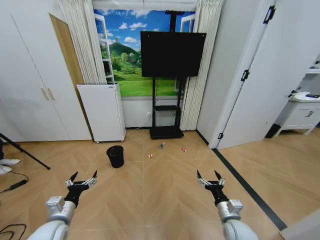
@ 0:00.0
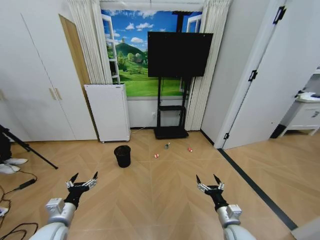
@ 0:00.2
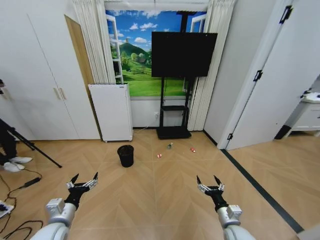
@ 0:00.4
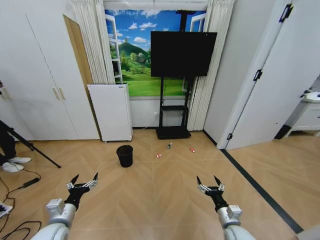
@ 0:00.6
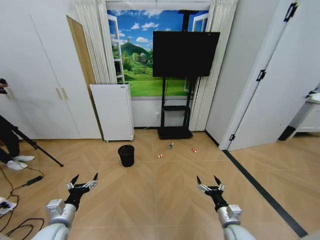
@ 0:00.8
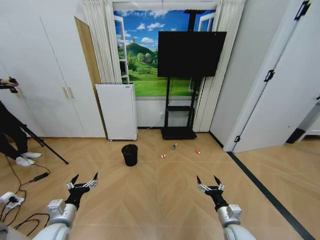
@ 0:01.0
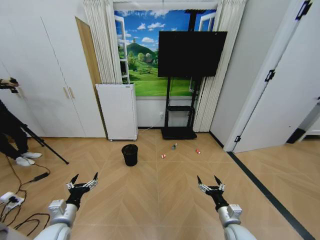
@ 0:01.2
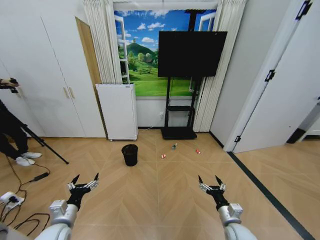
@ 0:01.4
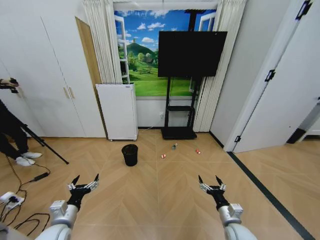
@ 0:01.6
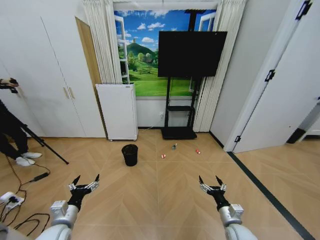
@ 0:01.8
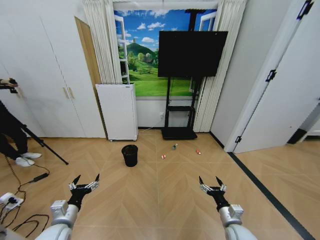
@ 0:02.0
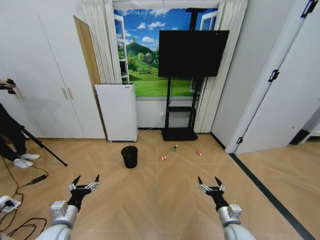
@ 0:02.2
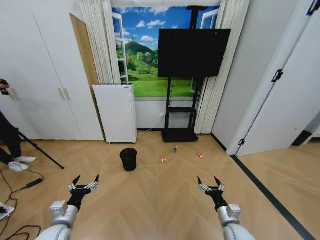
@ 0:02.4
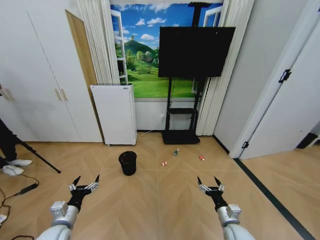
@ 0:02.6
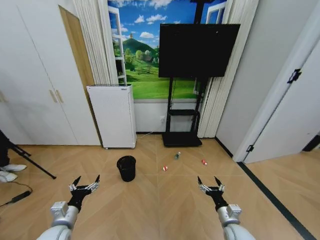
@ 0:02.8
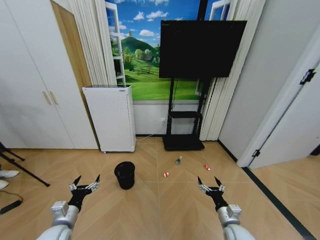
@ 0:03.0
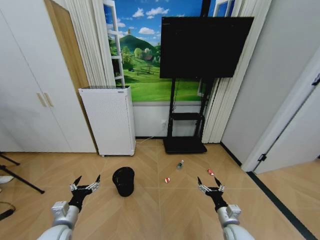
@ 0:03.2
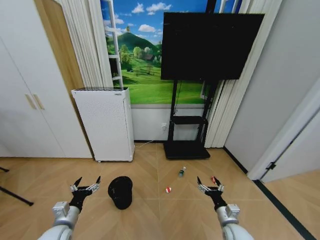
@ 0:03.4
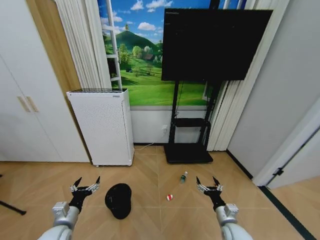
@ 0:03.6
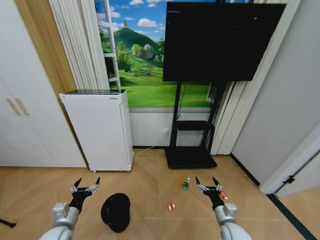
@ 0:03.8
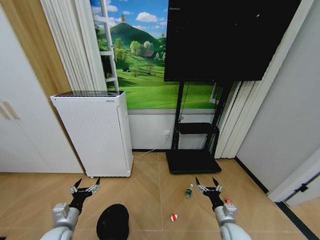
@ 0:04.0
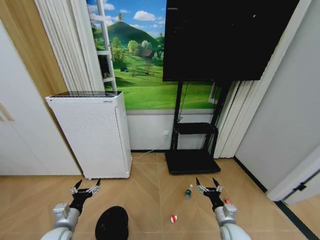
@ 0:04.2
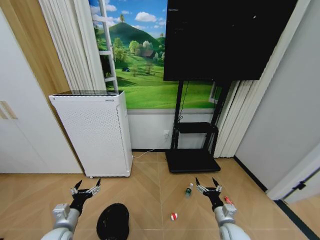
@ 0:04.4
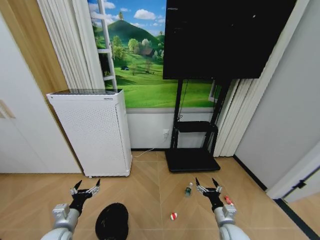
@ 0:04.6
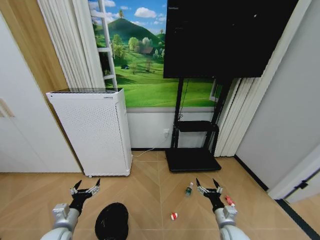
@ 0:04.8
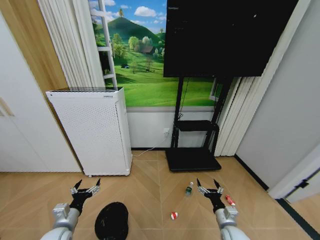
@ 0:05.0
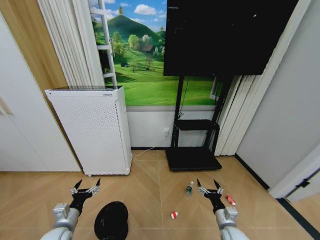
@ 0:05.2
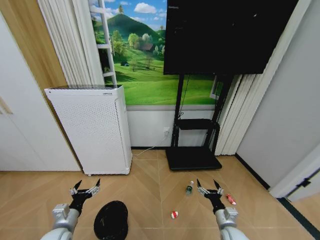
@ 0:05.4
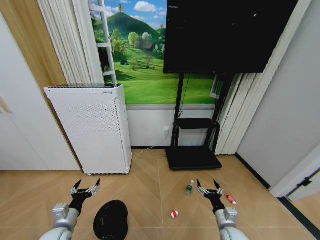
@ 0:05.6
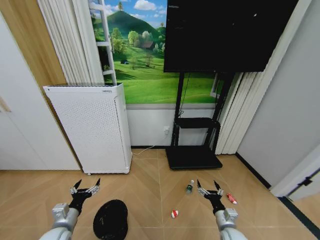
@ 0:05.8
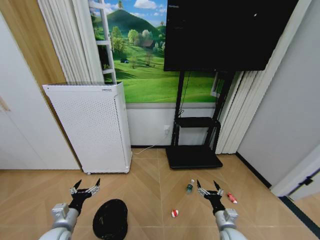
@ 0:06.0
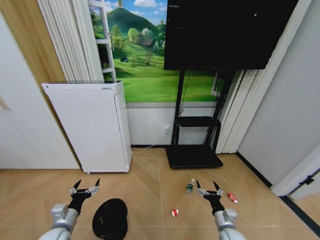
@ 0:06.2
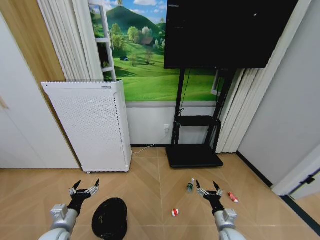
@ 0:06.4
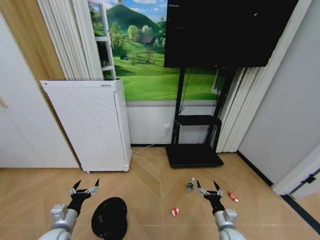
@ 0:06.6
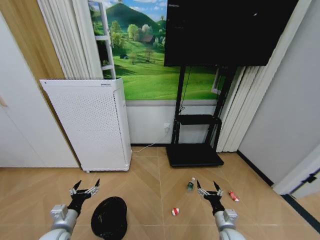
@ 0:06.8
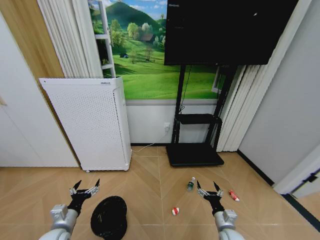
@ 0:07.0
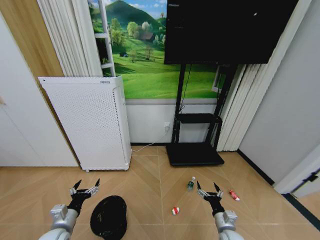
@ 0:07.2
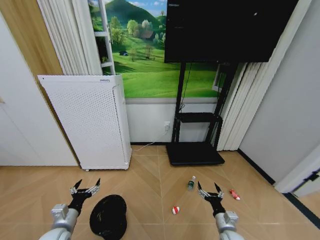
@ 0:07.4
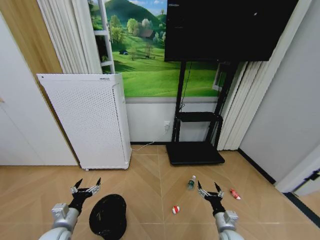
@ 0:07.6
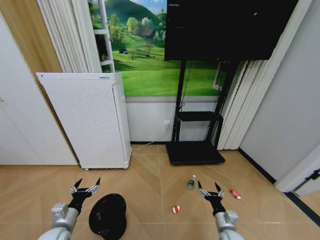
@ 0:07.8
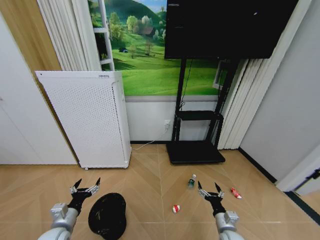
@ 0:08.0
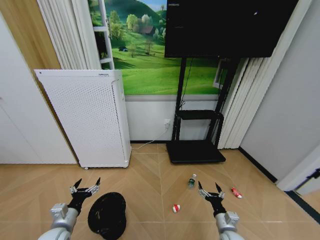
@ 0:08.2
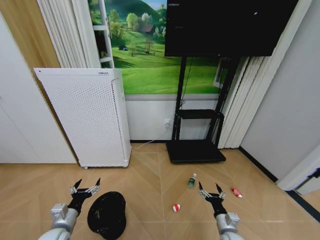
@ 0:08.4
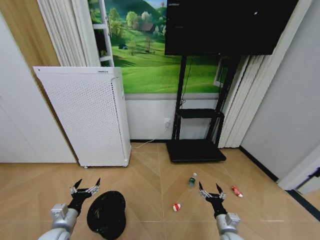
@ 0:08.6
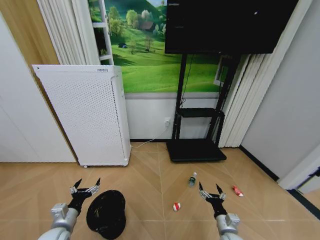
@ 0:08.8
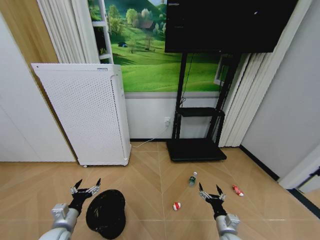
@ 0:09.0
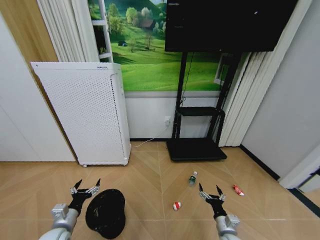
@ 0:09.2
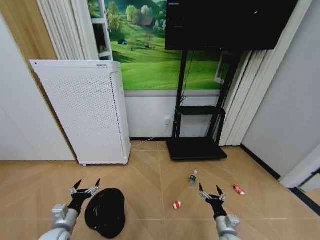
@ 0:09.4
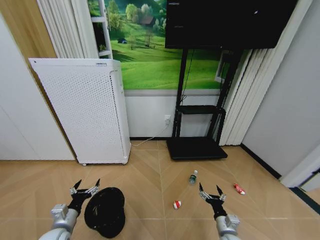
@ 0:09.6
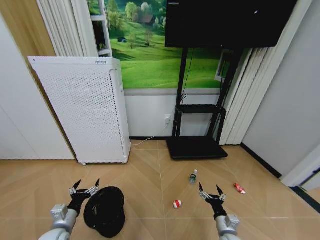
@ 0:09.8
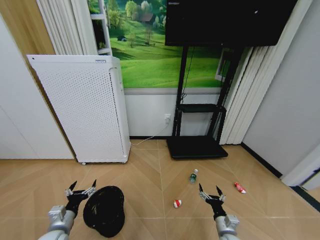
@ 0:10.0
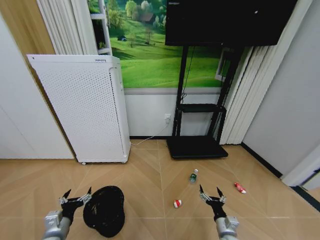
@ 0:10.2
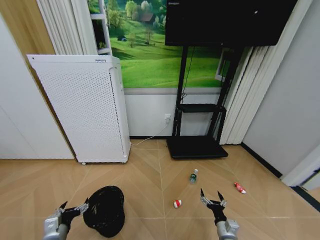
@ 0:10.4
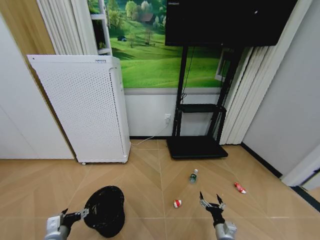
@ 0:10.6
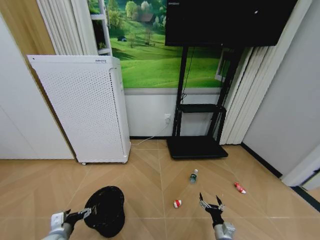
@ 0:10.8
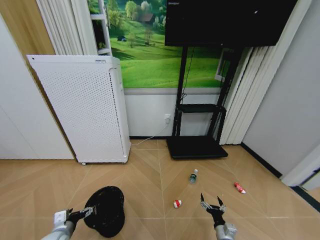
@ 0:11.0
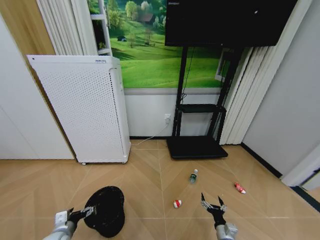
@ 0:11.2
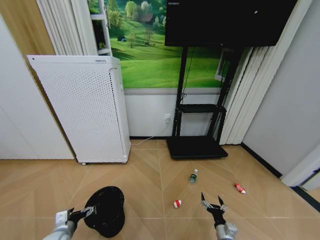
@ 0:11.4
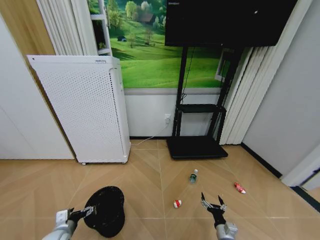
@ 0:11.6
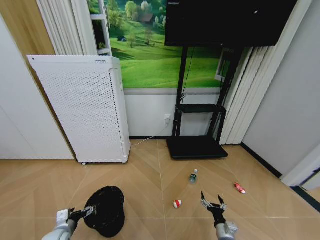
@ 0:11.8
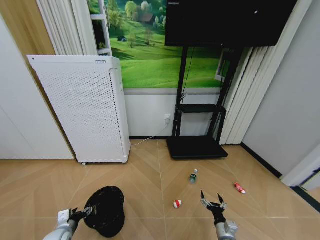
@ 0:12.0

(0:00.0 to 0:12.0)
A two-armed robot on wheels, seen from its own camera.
Task of the whole recording: Pick up the trash bin and place the garbage on the floor into it.
0:04.4 - 0:06.0: The grippers make only small movements.
0:06.0 - 0:07.6: The two grippers keep their place.
0:07.6 - 0:09.0: Both grippers stay put.
0:10.4 - 0:12.0: The left gripper moves some 5 cm.

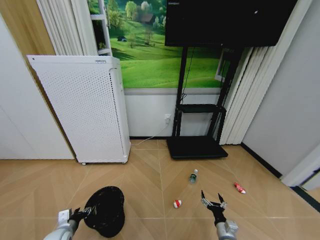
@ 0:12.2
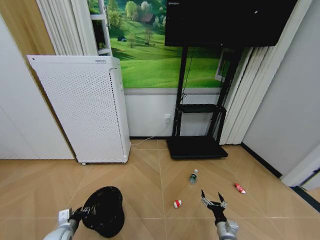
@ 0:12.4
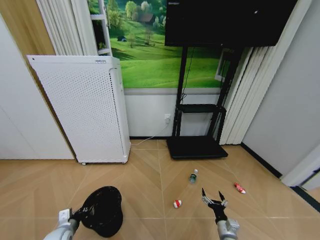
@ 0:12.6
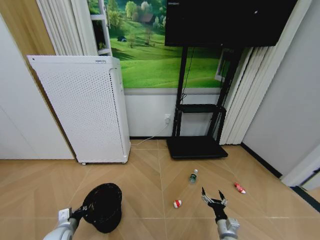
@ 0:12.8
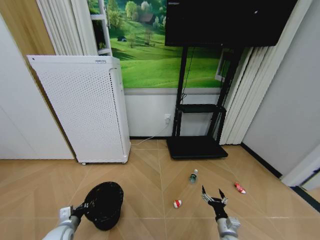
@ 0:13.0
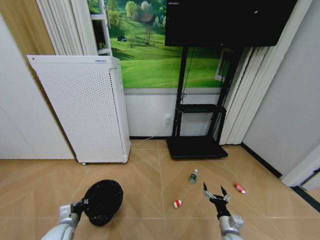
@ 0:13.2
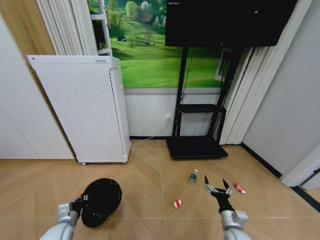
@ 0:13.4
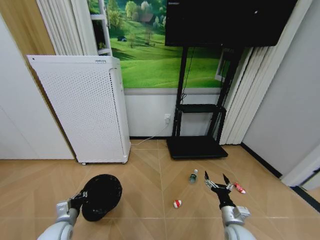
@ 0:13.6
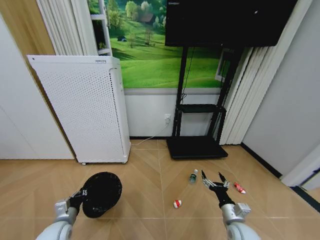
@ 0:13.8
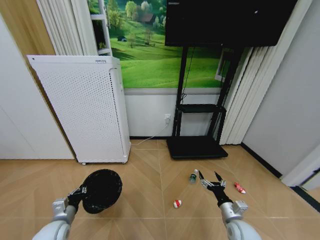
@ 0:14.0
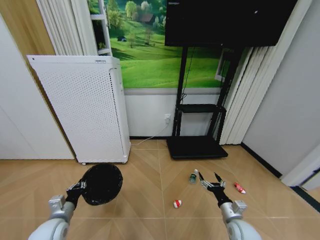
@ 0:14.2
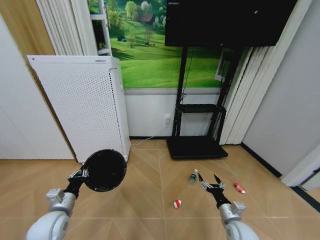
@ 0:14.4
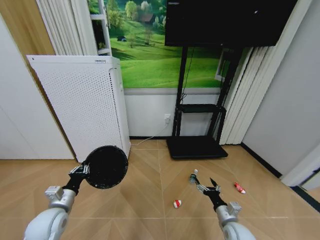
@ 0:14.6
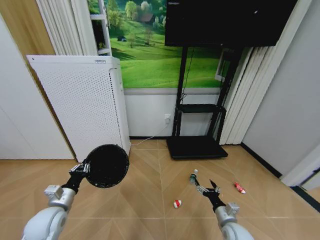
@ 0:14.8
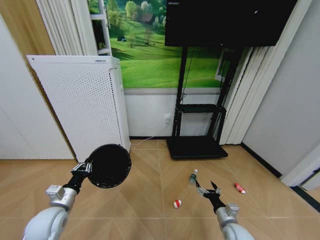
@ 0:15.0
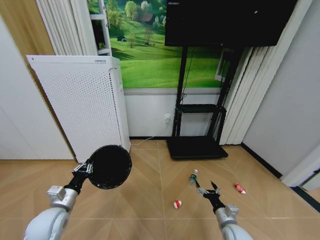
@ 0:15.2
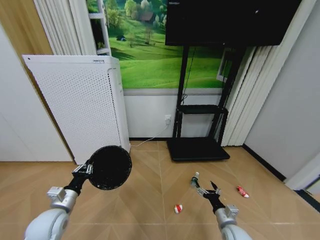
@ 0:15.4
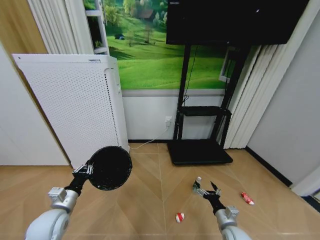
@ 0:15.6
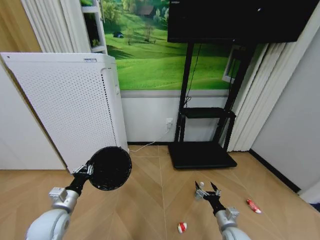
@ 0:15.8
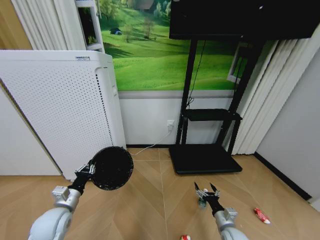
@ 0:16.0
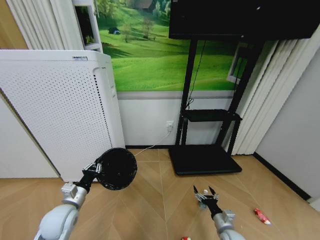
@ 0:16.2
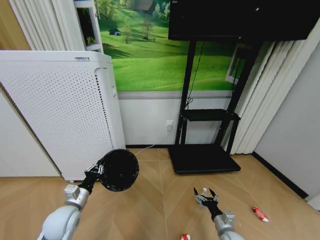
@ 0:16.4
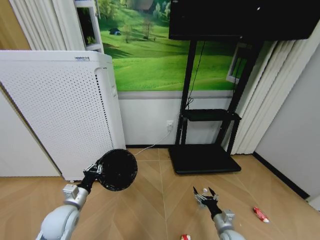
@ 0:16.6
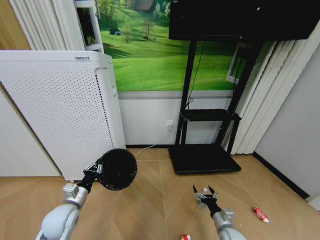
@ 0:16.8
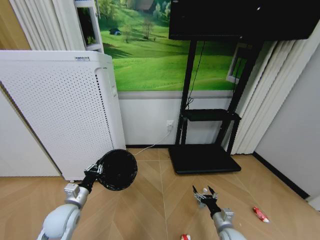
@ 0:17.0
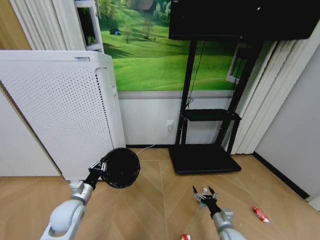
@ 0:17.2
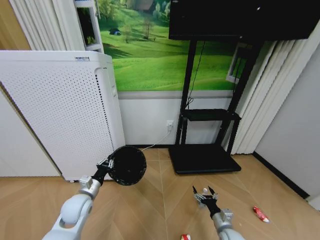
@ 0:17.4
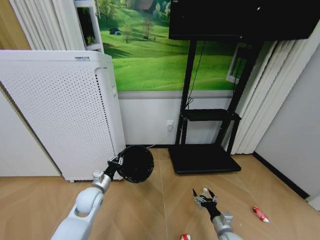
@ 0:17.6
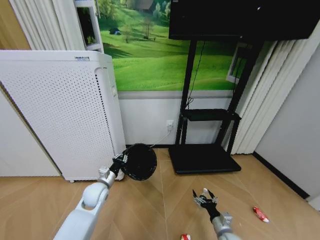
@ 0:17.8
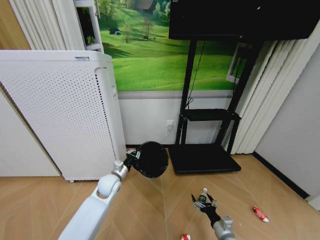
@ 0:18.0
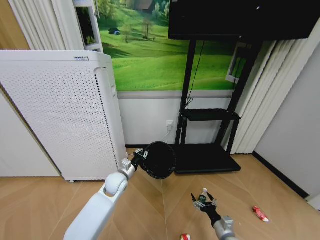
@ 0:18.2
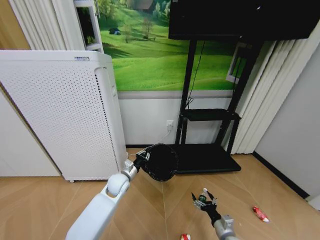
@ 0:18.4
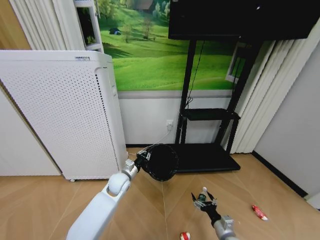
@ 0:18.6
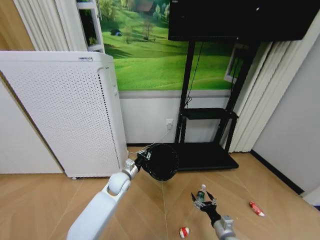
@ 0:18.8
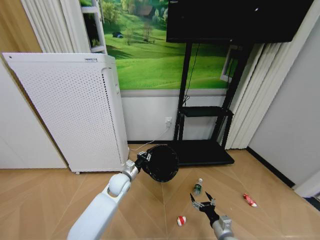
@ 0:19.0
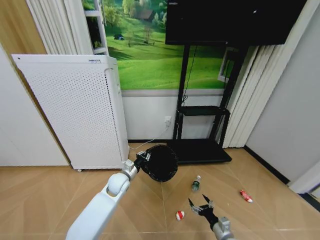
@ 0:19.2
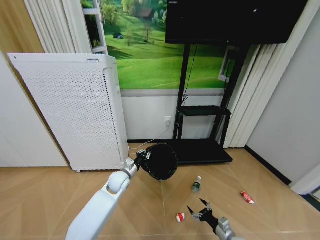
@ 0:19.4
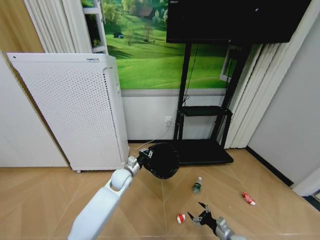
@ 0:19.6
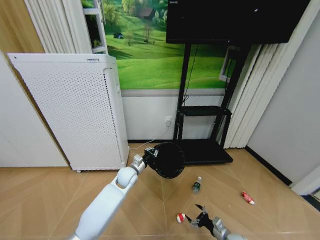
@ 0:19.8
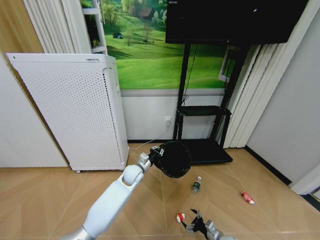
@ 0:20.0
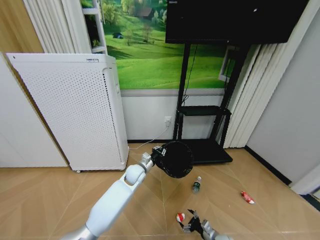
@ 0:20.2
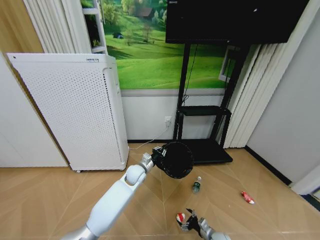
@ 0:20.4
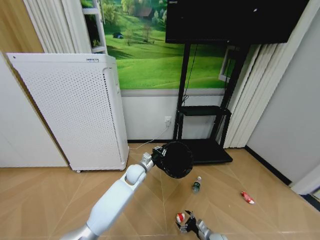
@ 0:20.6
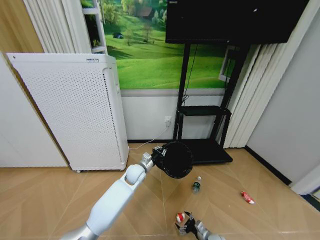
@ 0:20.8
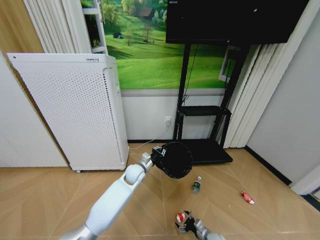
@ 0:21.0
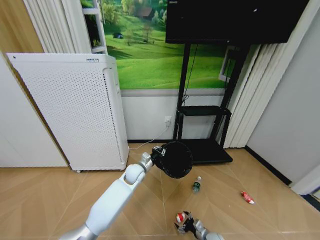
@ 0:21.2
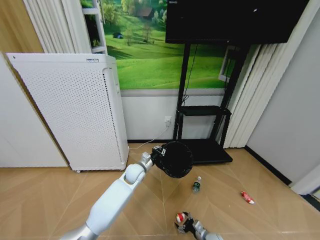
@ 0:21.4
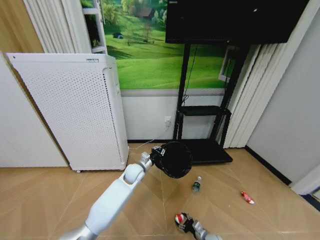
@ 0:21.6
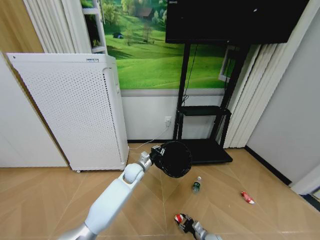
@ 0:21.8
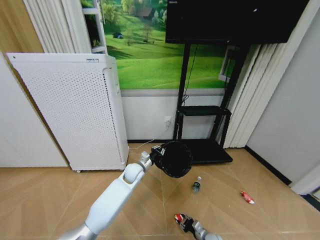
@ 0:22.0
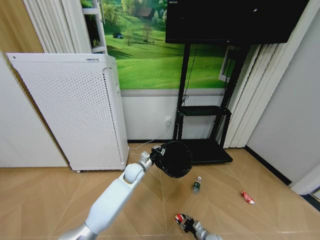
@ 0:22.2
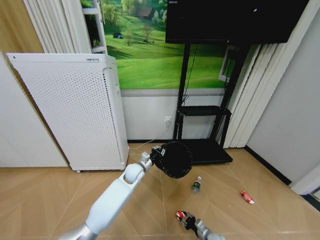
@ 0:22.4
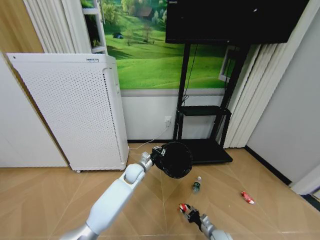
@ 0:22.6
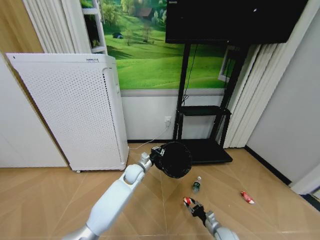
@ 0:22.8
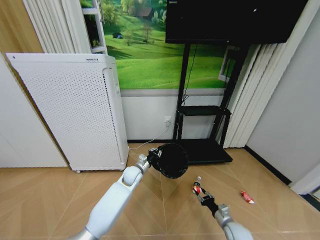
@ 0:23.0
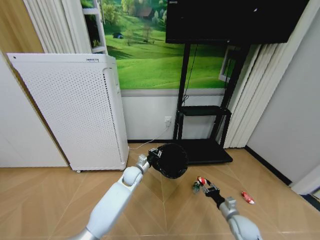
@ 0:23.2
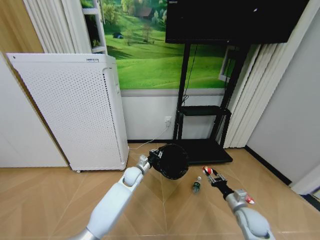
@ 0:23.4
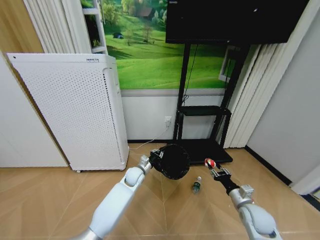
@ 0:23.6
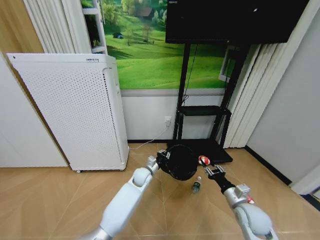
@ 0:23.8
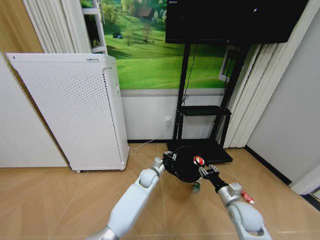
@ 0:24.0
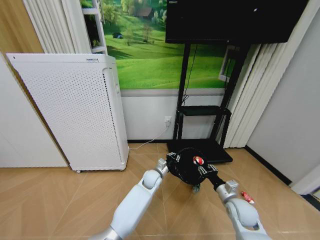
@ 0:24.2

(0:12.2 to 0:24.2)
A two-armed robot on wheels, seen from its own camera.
Task of the whole recording: Pick up the trash bin and place the garbage on the floor into it.
0:12.2 - 0:13.8: The right gripper moves upward, roughly 15 cm. Meanwhile the left gripper closes.
0:13.8 - 0:15.2: The left gripper shifts some 10 cm upward.
0:16.6 - 0:18.2: The left gripper moves to the right and forward, approximately 20 cm.
0:18.2 - 0:19.8: The left gripper heads to the right, covering roughly 5 cm. Meanwhile the right gripper shifts by approximately 5 cm.
0:19.8 - 0:21.2: The right gripper moves downward and to the left, about 10 cm.
0:21.2 - 0:22.6: The right gripper closes up.
0:22.6 - 0:24.2: The right gripper shifts approximately 20 cm upward. The left gripper shifts roughly 10 cm to the right.
